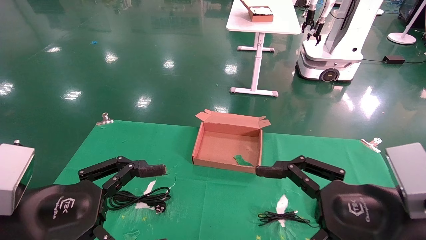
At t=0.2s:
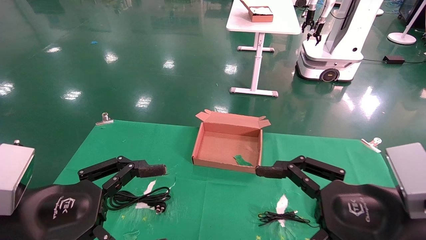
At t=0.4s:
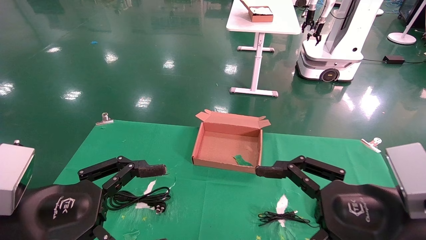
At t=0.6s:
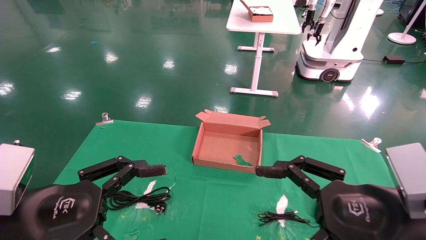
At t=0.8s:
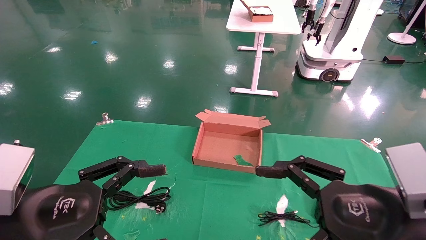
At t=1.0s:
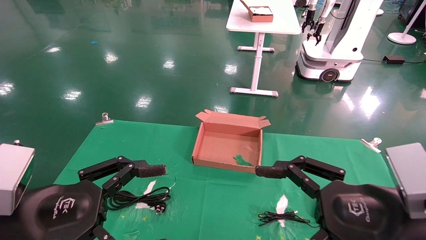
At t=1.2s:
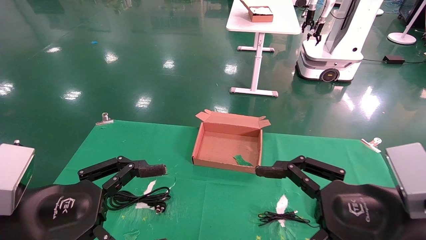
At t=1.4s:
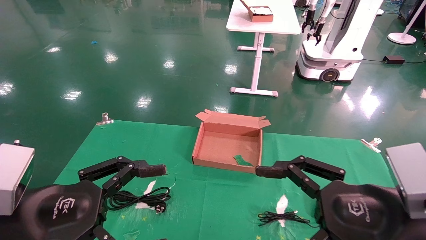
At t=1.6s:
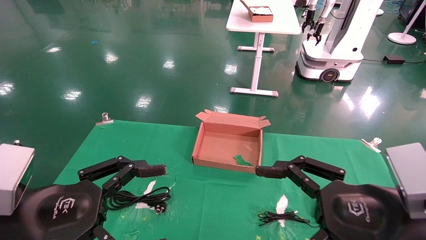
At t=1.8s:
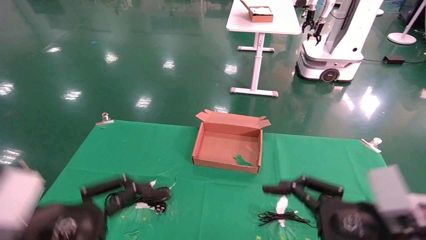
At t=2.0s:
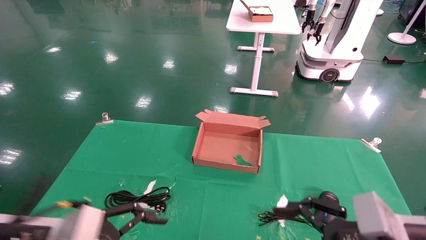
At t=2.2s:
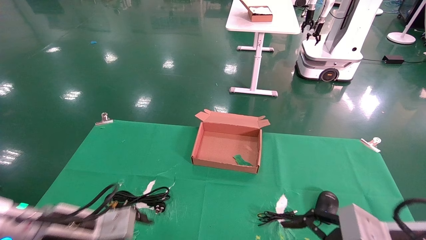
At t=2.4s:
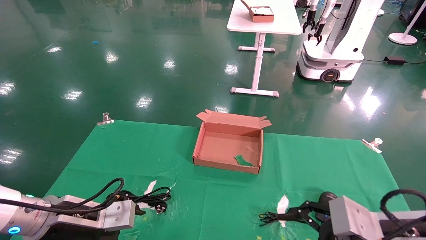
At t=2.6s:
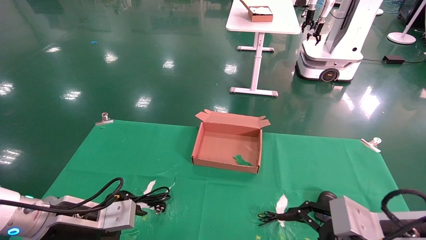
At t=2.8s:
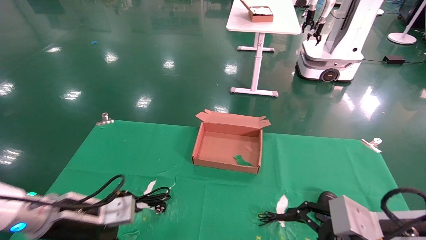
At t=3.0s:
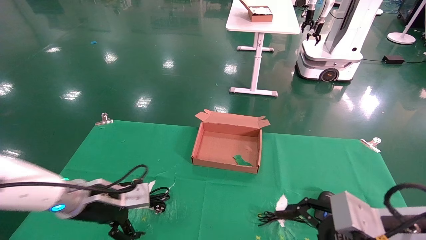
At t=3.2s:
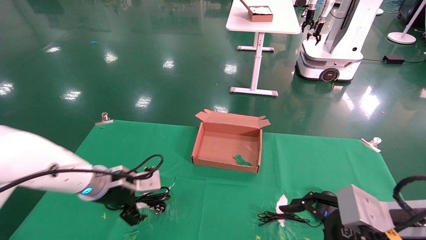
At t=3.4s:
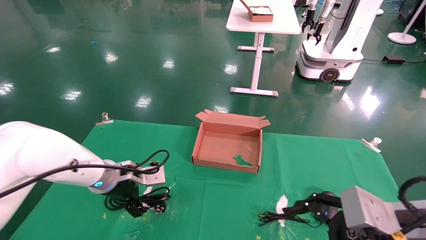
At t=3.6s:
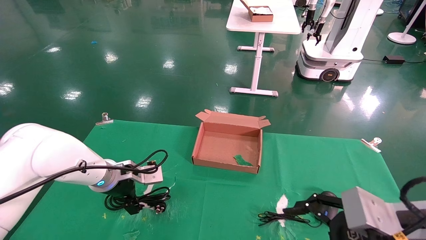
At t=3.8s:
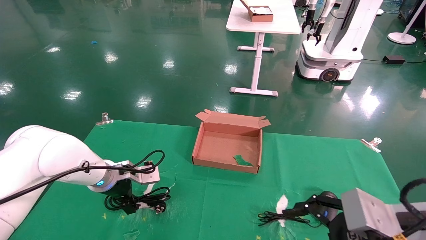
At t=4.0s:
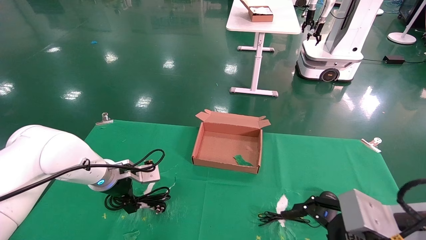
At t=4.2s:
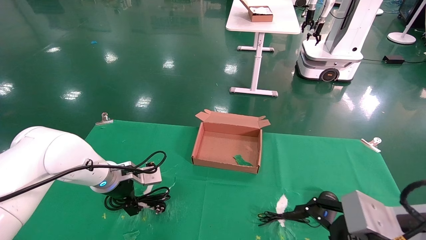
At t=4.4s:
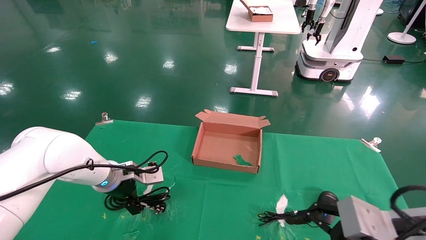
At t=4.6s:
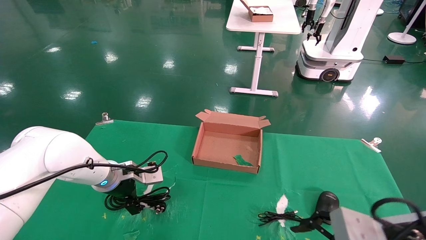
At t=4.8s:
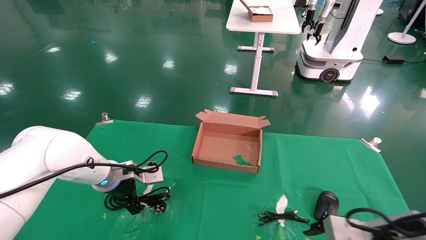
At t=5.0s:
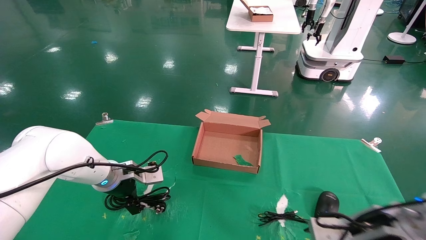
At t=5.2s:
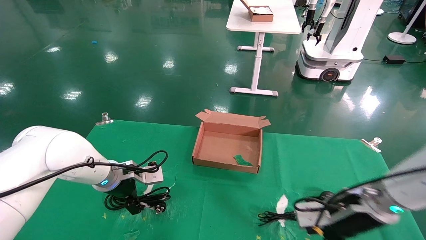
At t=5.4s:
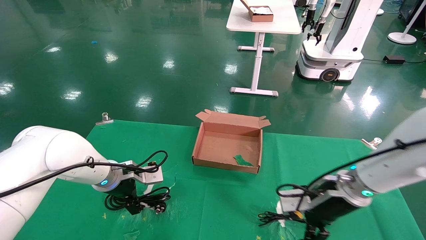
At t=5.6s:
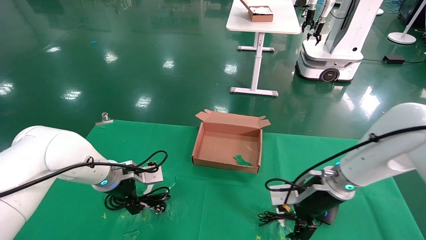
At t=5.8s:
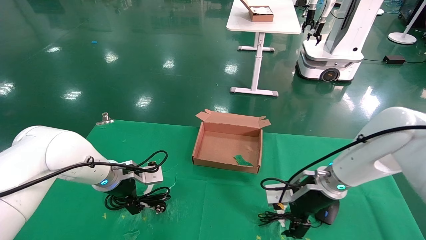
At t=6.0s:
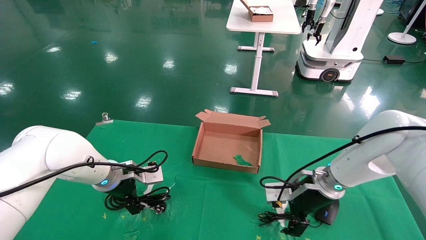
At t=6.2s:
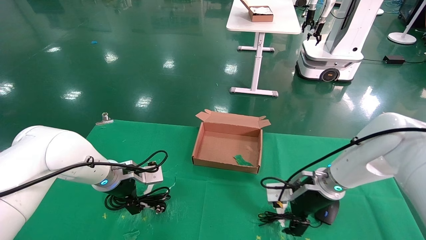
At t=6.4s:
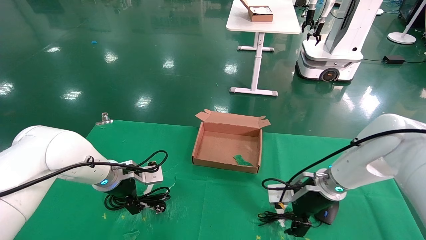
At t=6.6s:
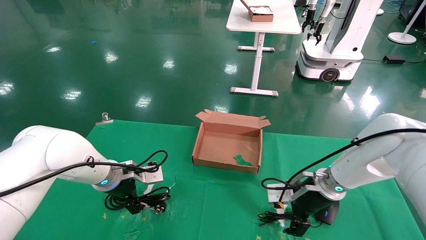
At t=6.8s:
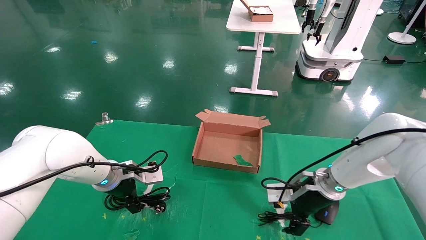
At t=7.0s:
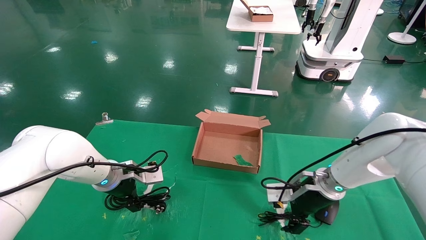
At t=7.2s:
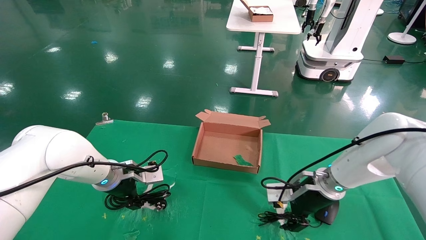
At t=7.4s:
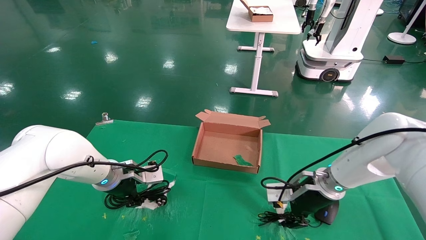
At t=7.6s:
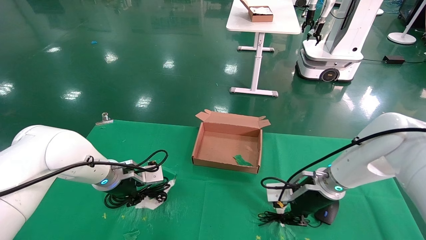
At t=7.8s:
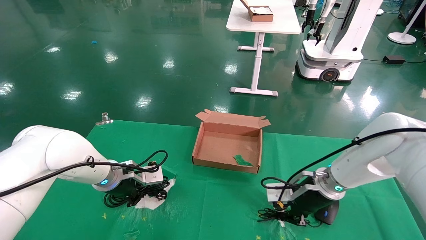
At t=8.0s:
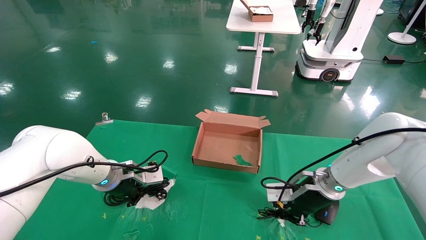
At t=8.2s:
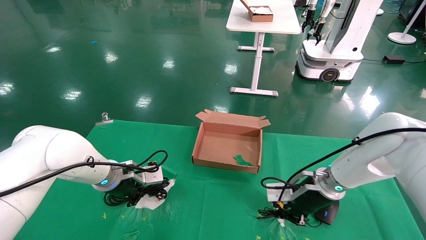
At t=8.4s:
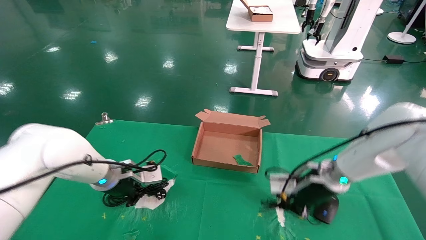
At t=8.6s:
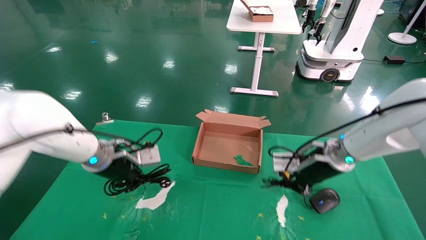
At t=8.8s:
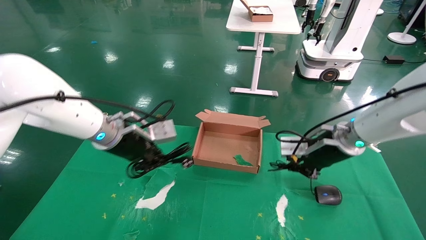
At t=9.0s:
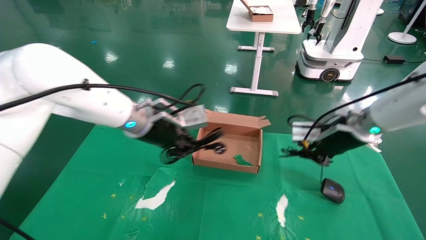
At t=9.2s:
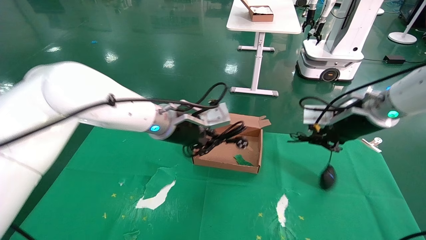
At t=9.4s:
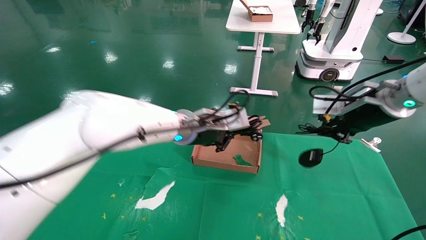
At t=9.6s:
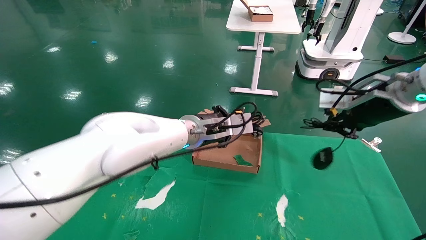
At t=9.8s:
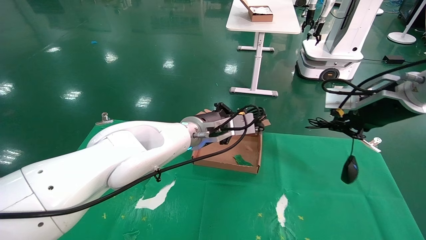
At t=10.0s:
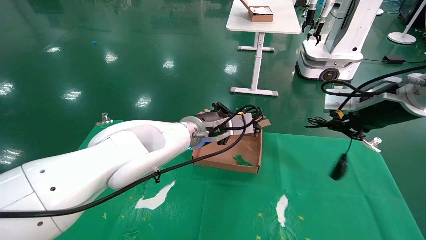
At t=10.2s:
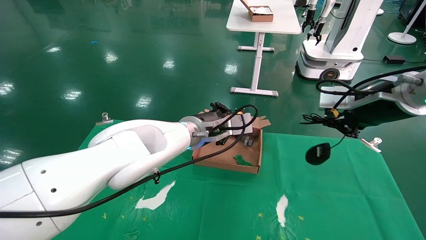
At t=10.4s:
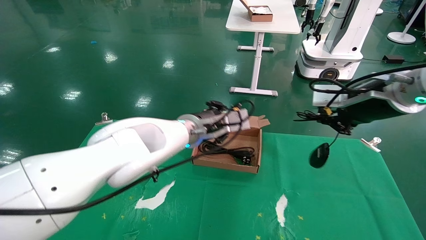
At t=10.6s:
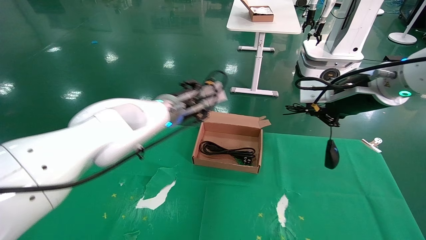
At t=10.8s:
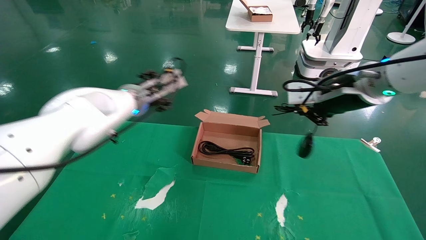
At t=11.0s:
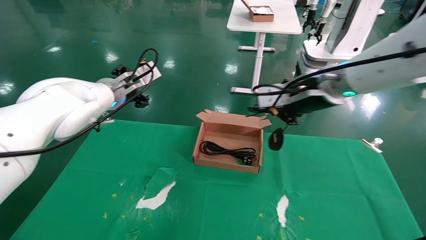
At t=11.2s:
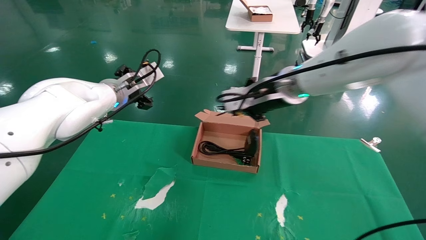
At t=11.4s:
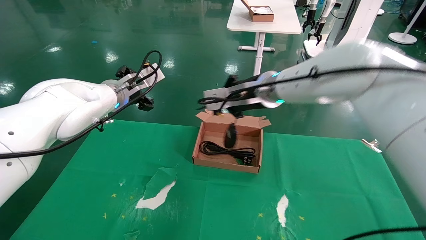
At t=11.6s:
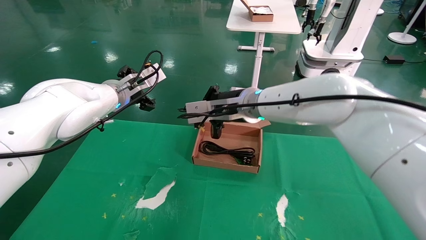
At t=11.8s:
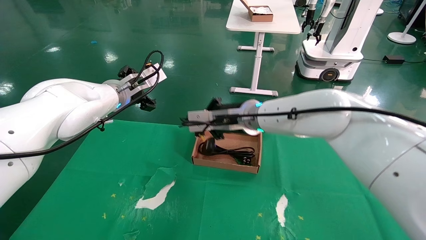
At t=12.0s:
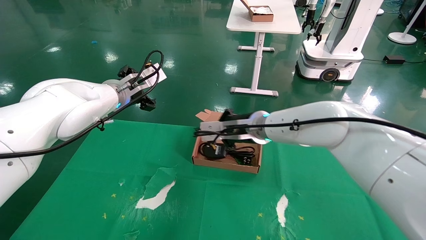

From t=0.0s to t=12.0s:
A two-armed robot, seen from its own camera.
Step, from t=1.8s to t=8.2s: Grab and lift both the mouse and power cord from the accessory packaging area at the same time.
From t=1.6s to t=3.0s: The left gripper is displaced forward by some 15 cm.
From t=3.0s to t=4.4s: The left gripper is displaced forward by some 10 cm.
From t=4.4s to t=6.0s: The right gripper moves forward, about 20 cm.
From t=6.0s to t=7.6s: The right gripper closes its fingers. The left gripper closes its fingers.
From t=7.6s to t=9.0s: The left gripper travels upward and to the right by roughly 15 cm. The right gripper moves upward, roughly 15 cm, and closes up.
From t=9.0s to t=10.4s: The right gripper is displaced upward and backward by some 10 cm; the left gripper heads to the right, covering about 5 cm.
From t=10.4s to t=12.0s: The right gripper goes approximately 25 cm to the left, forward and downward. The left gripper moves to the left, approximately 15 cm, and opens up.

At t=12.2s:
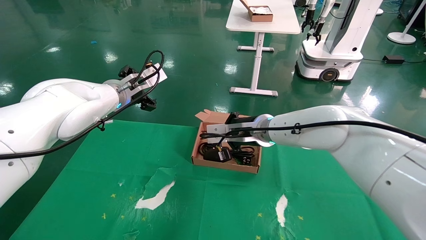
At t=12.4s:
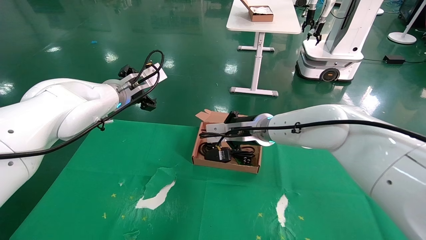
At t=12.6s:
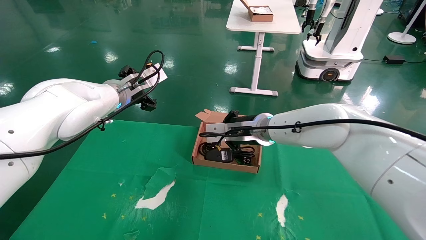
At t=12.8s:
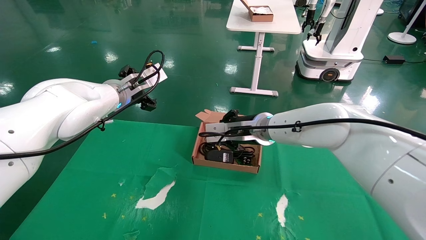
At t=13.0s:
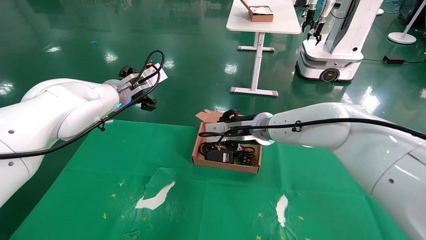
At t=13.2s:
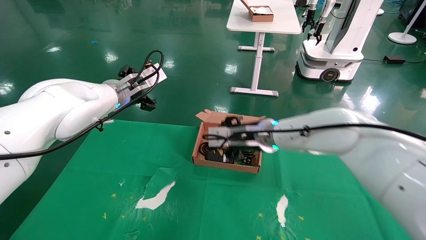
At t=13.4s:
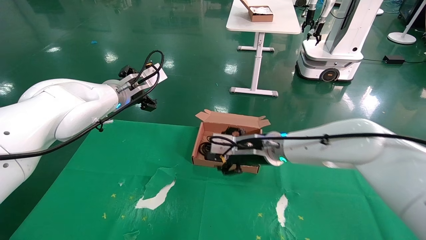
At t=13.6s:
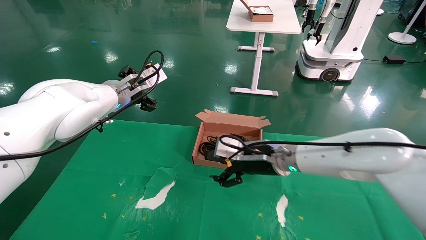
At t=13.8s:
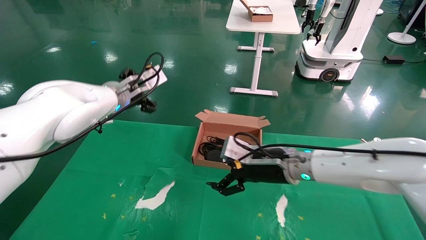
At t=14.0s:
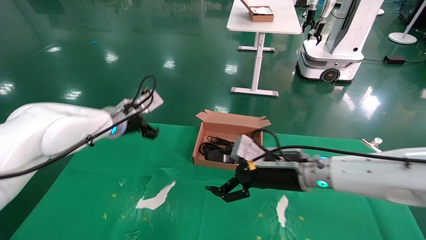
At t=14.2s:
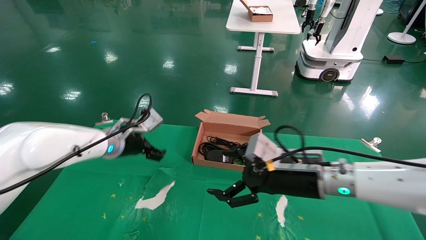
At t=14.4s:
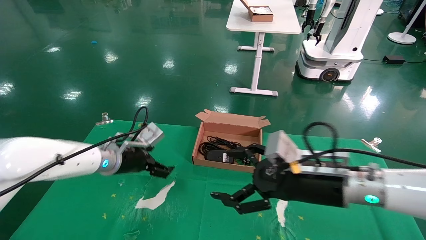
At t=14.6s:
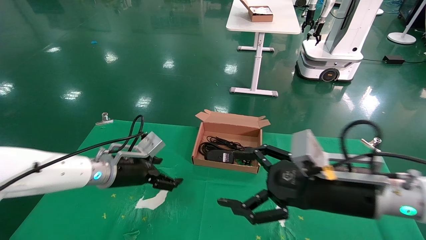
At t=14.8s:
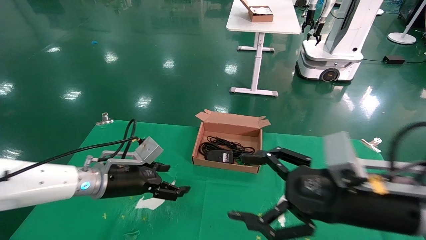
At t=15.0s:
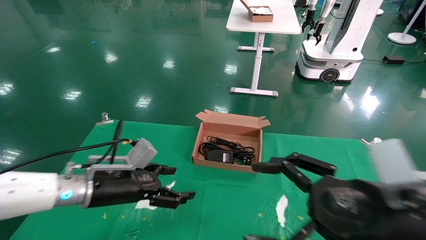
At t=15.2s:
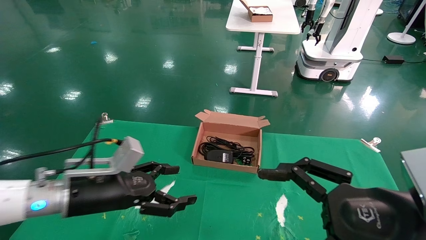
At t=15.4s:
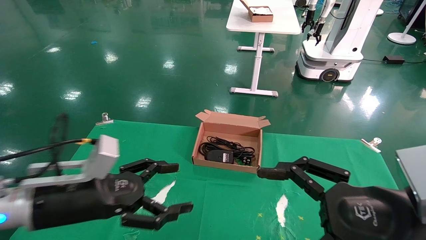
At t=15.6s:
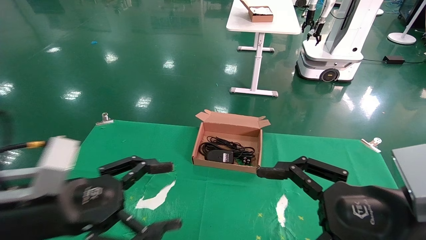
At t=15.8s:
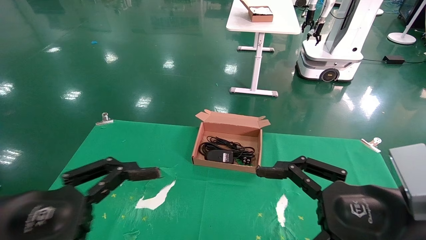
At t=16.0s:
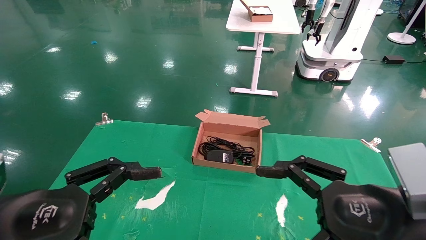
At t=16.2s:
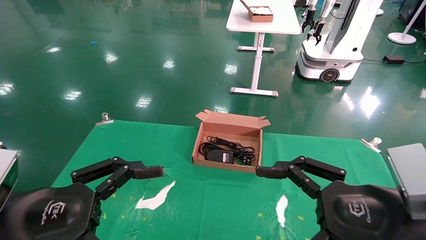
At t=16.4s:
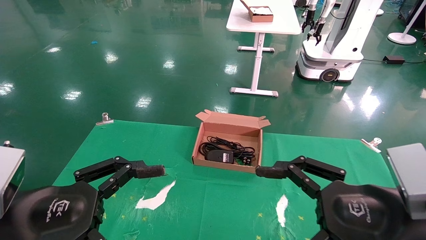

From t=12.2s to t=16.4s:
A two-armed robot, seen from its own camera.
From t=12.2s to t=13.6s: The right gripper goes some 5 cm downward, and opens.
From t=13.6s to t=15.0s: The left gripper goes approximately 20 cm downward and backward, while the right gripper travels backward and to the right by approximately 25 cm.
From t=15.0s to t=16.4s: The left gripper heads backward, covering some 15 cm.
